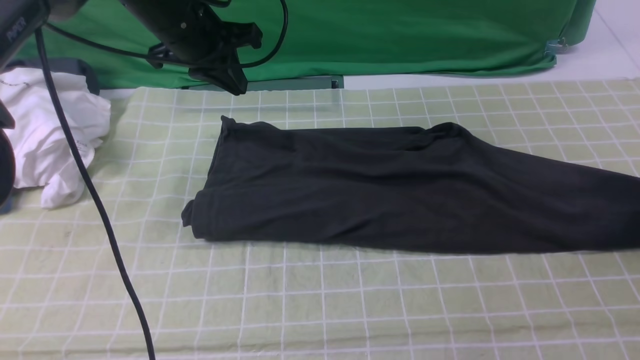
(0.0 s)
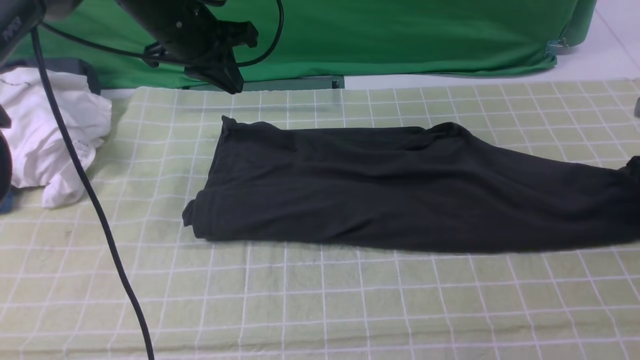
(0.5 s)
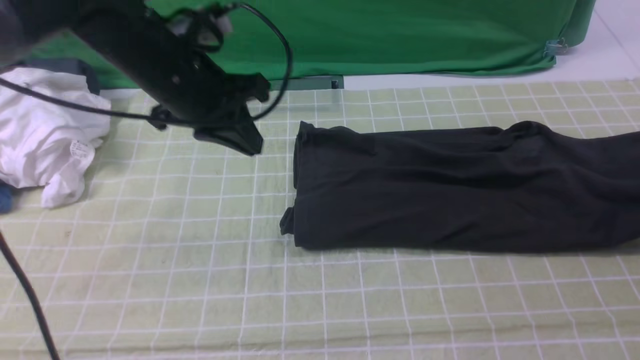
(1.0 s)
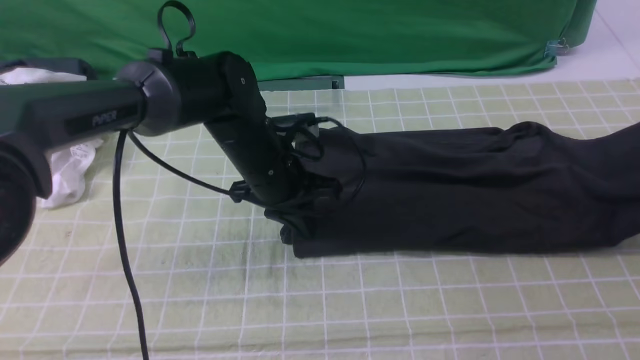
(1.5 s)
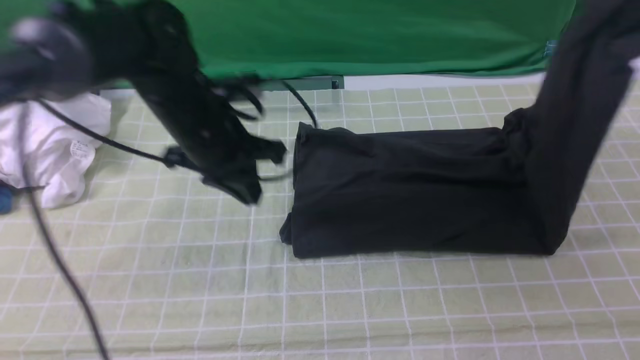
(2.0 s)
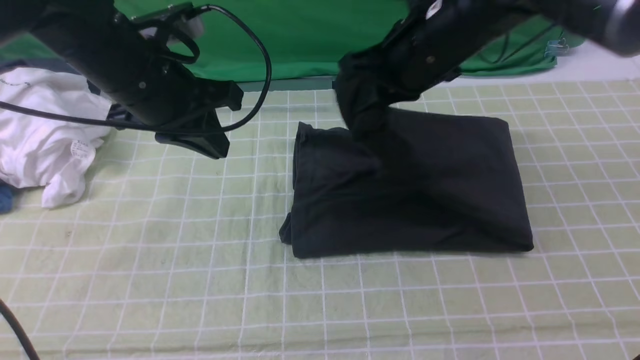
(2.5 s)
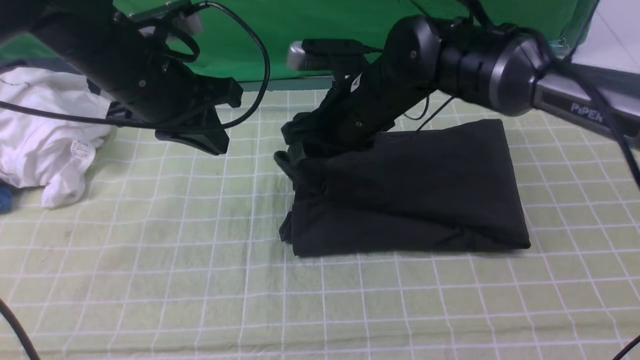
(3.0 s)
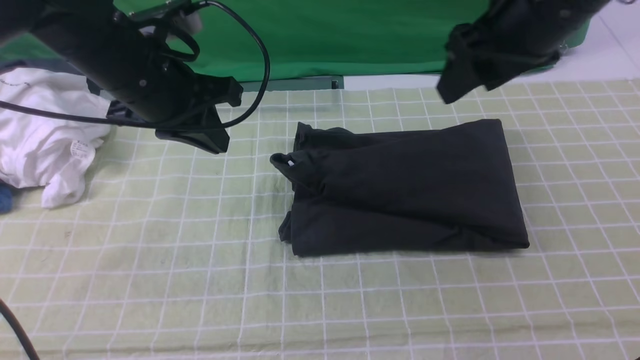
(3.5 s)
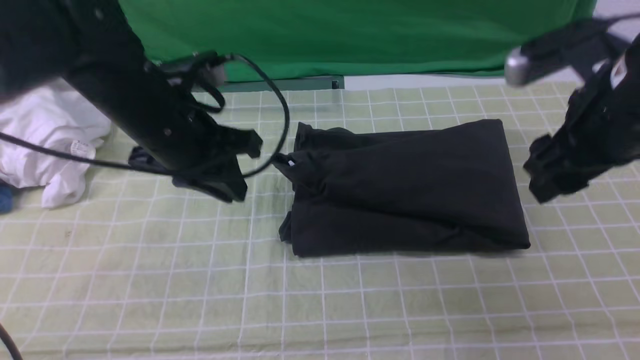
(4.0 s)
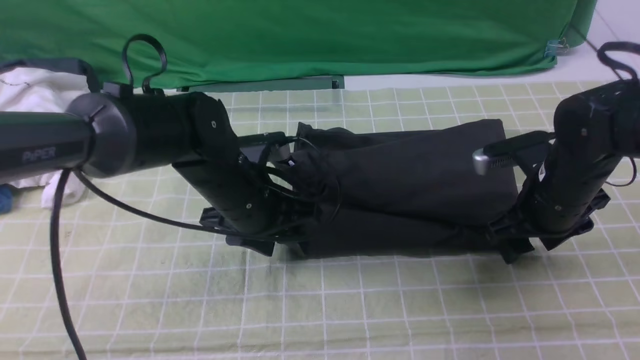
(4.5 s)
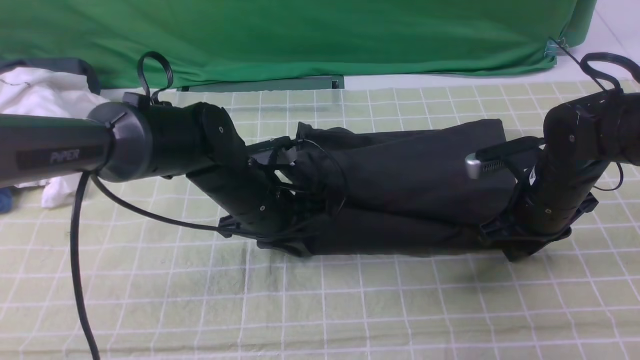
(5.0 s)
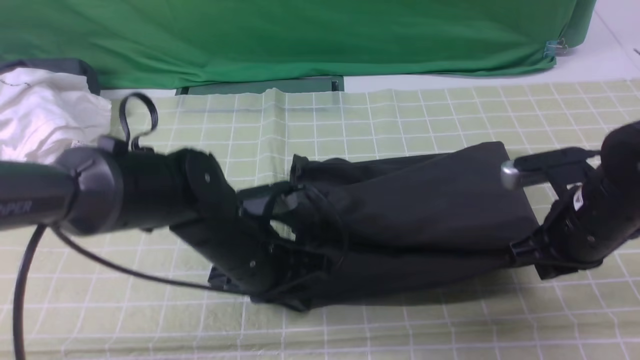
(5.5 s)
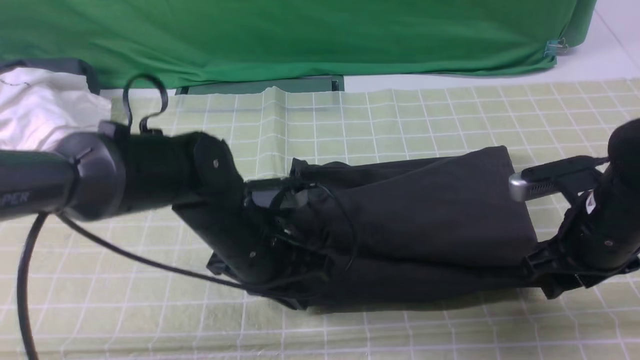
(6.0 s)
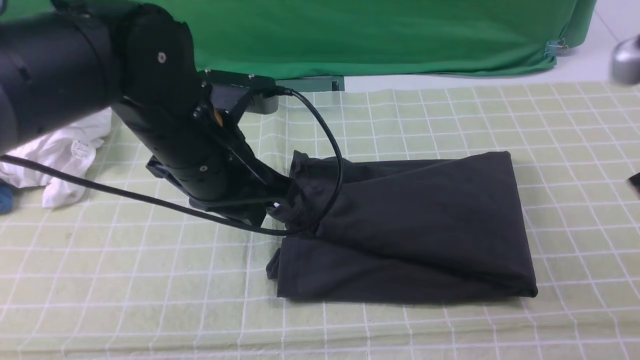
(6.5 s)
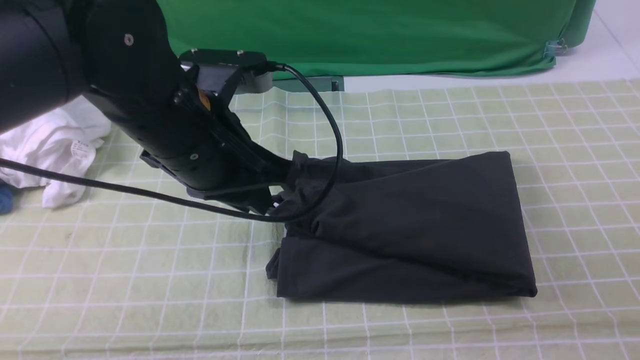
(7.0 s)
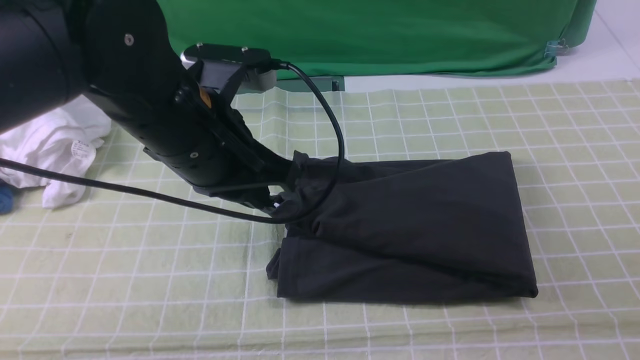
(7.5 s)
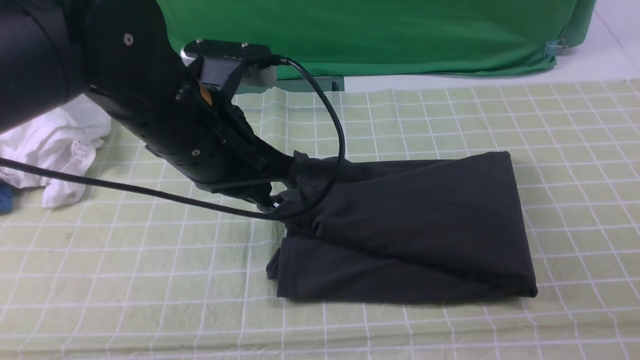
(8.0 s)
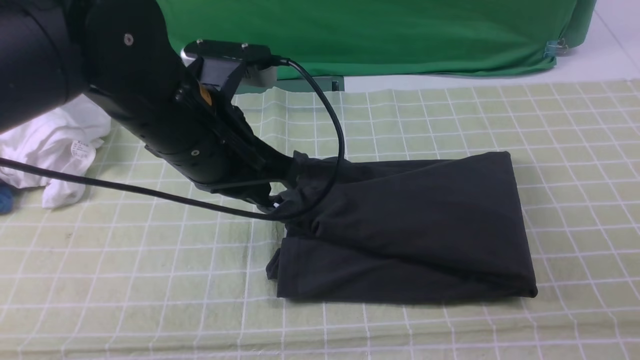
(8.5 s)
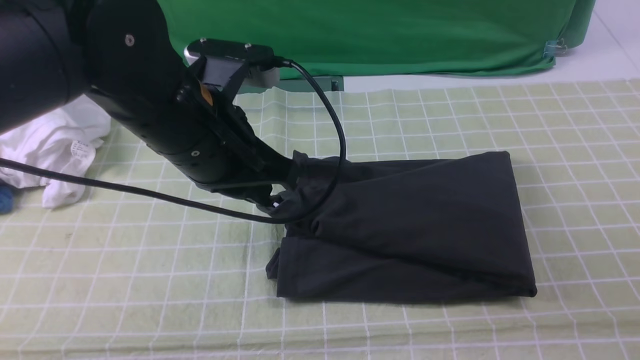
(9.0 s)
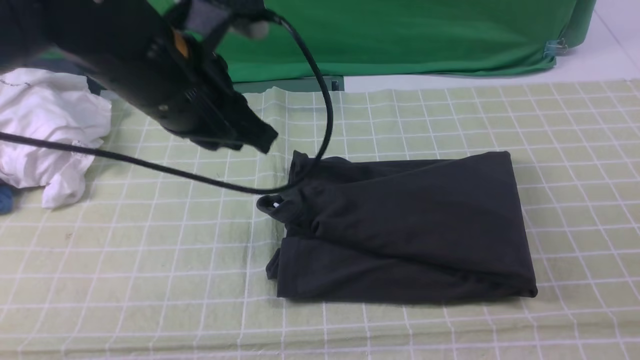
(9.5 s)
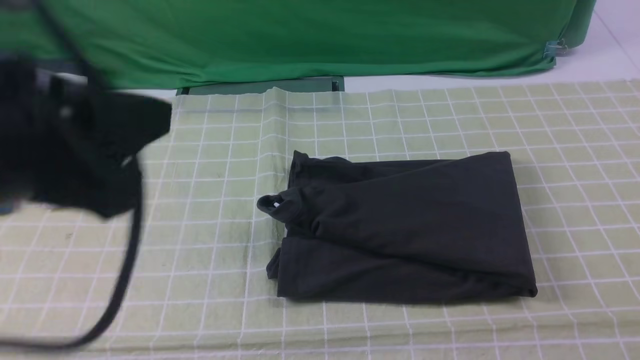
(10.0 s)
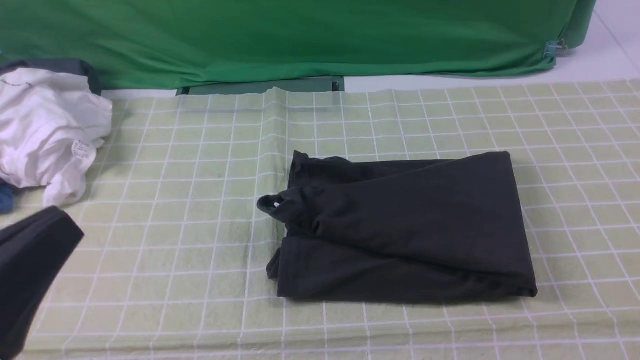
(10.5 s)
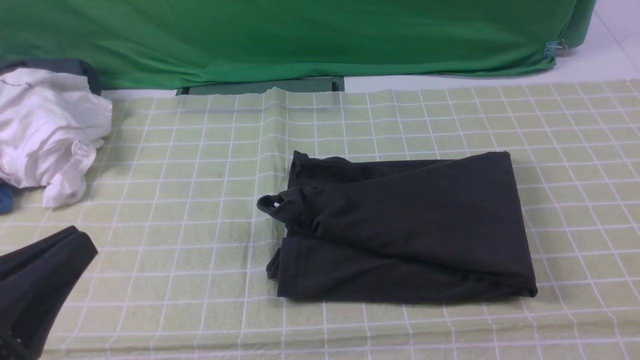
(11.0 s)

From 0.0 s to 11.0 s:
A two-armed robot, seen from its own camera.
Step, from 0.5 s to 3.0 s: use the right arm to drag the right edge of the fabric to the left and folds it over the left edge.
From 0.0 s to 2.0 s: The left gripper goes about 10 cm backward; the right gripper goes some 25 cm upward and to the left, and closes up.
From 2.0 s to 3.5 s: The right gripper shifts roughly 10 cm to the left, and opens, while the left gripper heads upward, covering some 5 cm.
From 3.5 s to 5.5 s: The right gripper moves downward, approximately 20 cm, and closes its fingers. Meanwhile the left gripper shifts roughly 20 cm downward, to the right and backward, and opens, then closes once more.
From 5.5 s to 7.5 s: The left gripper heads upward, covering approximately 15 cm, while the right gripper moves backward and upward, approximately 25 cm, and opens, then closes again.
From 7.5 s to 9.0 s: The right gripper heads downward, covering about 10 cm.
From 9.0 s to 11.0 s: The left gripper is displaced backward and to the left by some 25 cm.

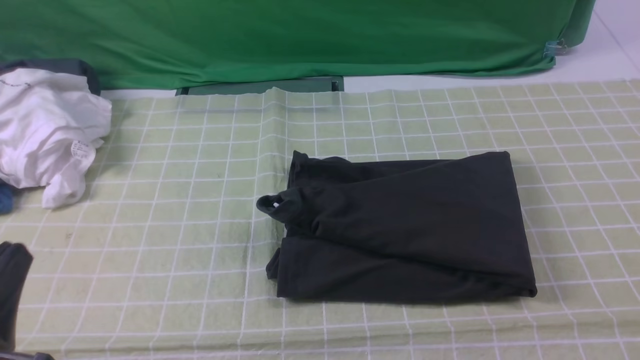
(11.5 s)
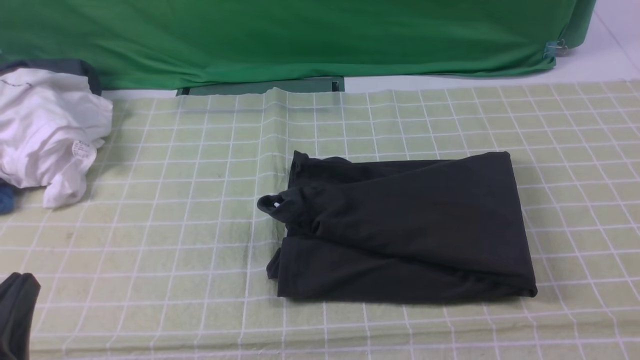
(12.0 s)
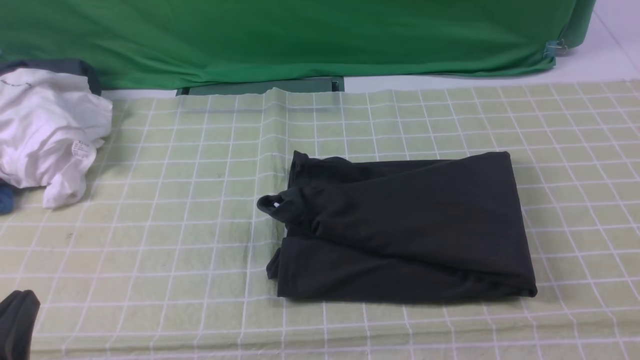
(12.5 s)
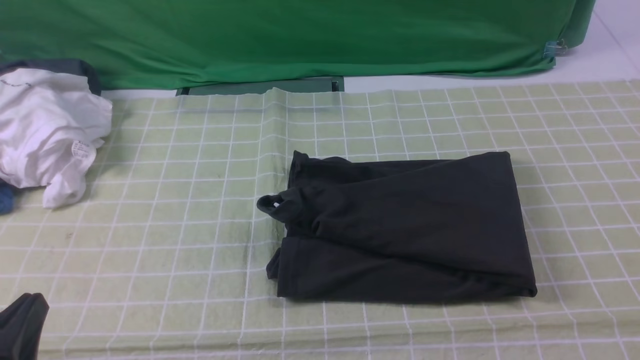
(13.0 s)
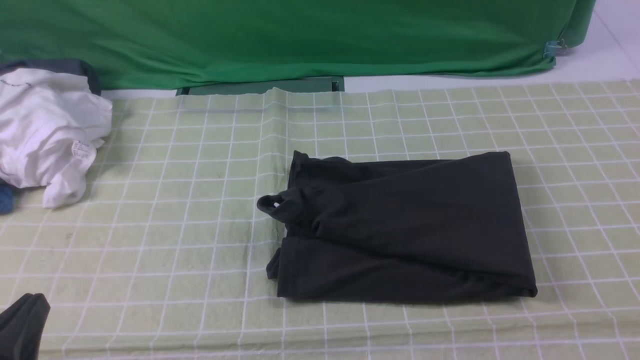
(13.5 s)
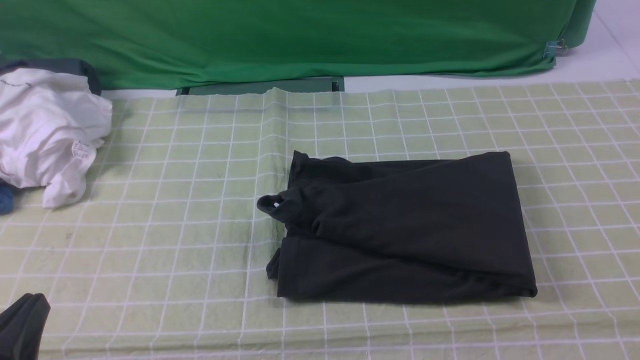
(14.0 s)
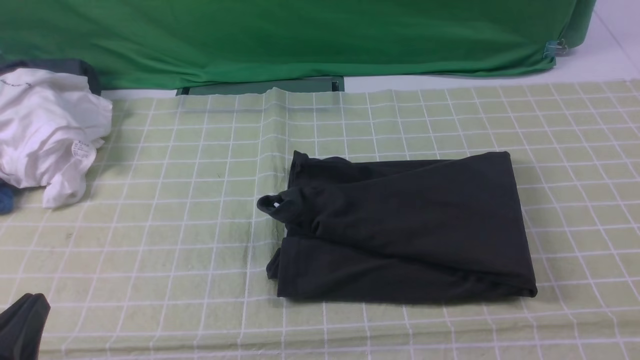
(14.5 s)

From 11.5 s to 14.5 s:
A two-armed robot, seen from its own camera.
From 11.5 s to 13.0 s: The grippers make only small movements.
From 13.0 s to 14.5 s: The two grippers keep their place.

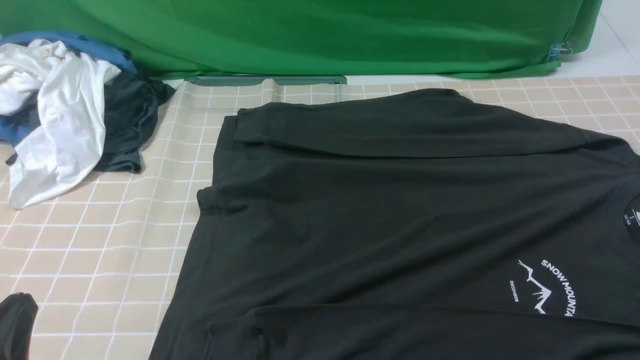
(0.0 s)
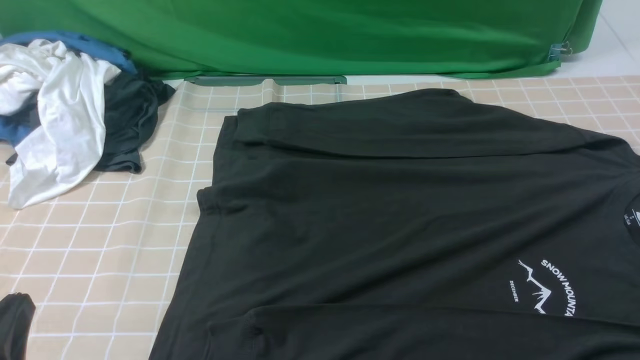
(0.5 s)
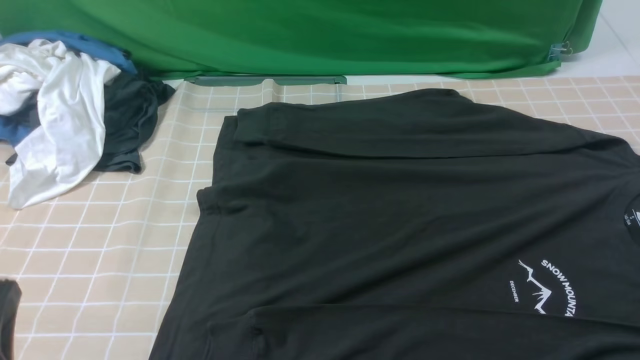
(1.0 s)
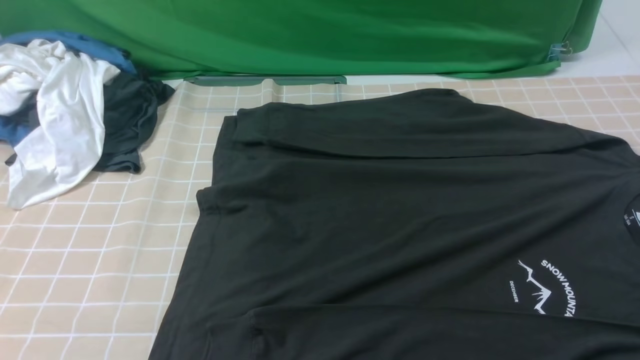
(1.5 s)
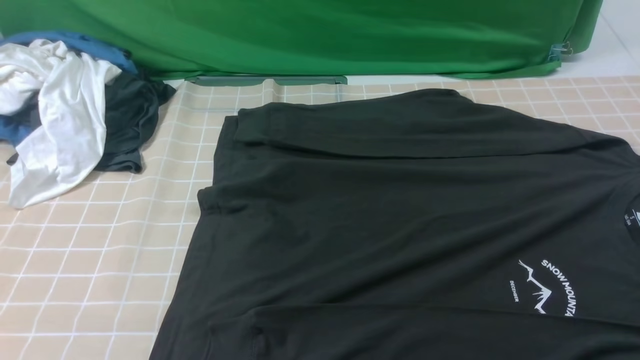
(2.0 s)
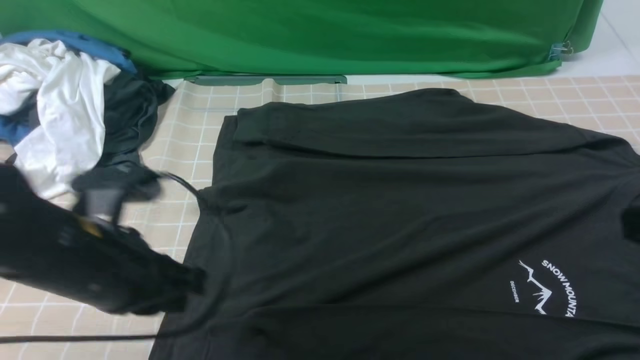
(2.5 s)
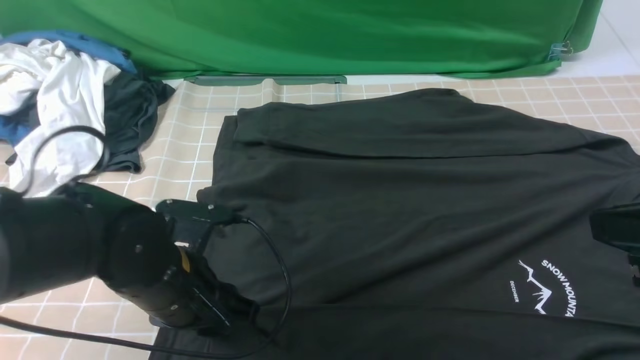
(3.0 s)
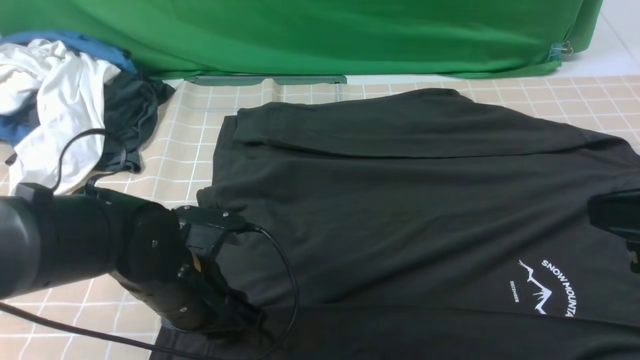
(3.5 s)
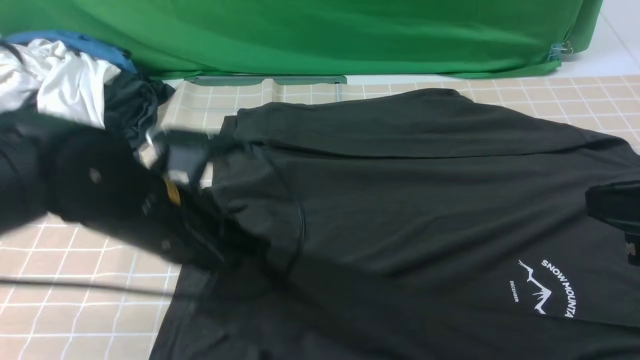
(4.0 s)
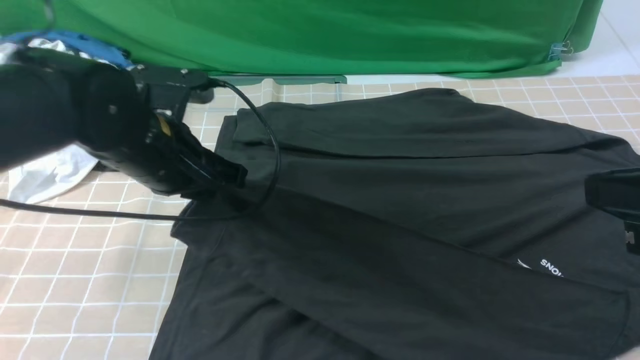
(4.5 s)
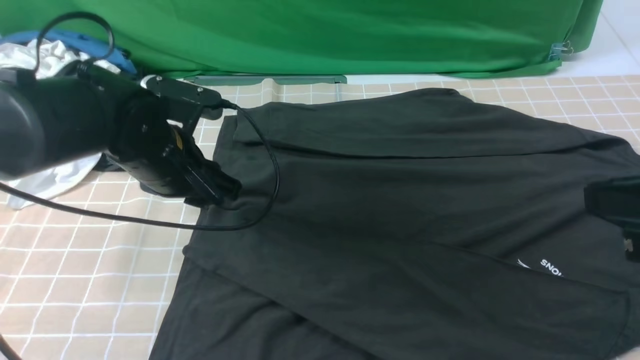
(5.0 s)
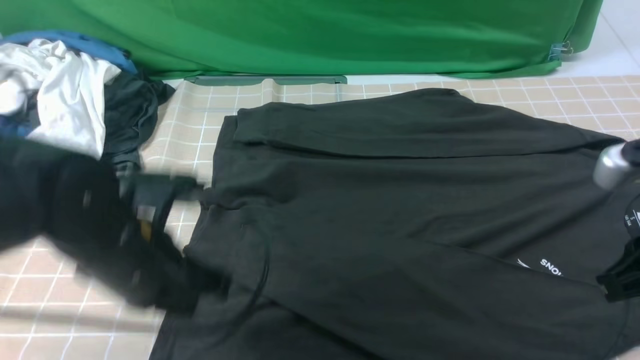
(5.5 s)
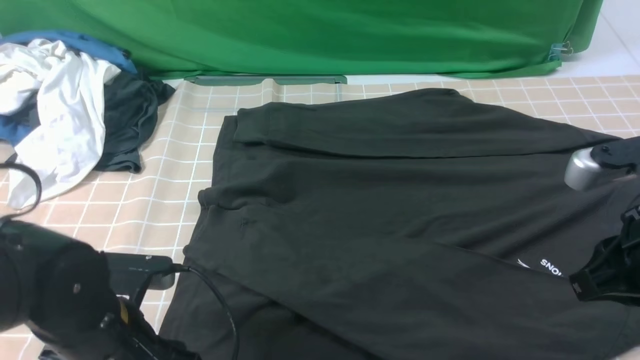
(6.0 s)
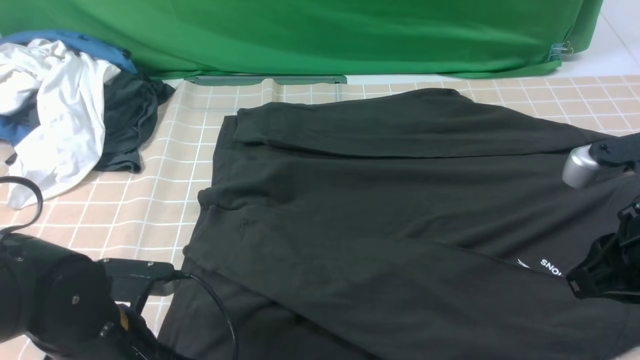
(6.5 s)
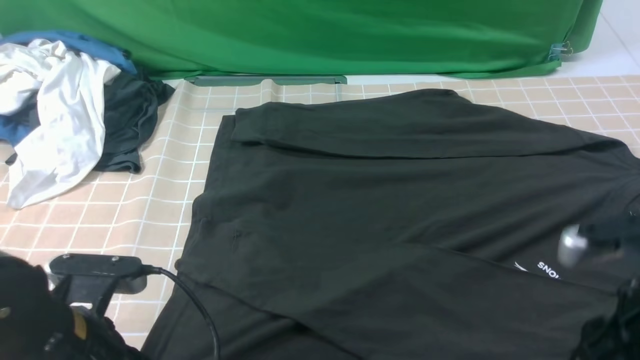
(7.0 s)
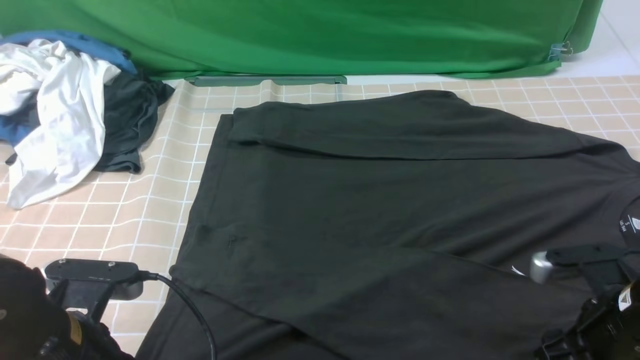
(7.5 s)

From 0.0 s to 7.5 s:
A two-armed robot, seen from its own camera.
Step, from 0.0 s to 3.5 s: use the left arm to clamp the cuff closest to it.
Step, from 4.0 s to 5.0 s: use the left arm to drag and place the cuff at the centered position on the left edge of the fabric.
From 0.0 s to 2.0 s: The left gripper moves upward, some 15 cm.
From 2.0 s to 4.0 s: The left gripper moves forward, to the right and downward, roughly 20 cm, and opens, then closes again, while the right gripper is displaced forward and to the left by roughly 10 cm.
From 4.0 s to 5.5 s: The left gripper moves some 10 cm forward and comes back, and opens, then closes once more. Meanwhile the right gripper shifts about 5 cm downward.
From 5.5 s to 7.5 s: The right gripper goes about 15 cm downward, and opens its fingers. The left gripper heads backward, covering roughly 10 cm, and opens, then closes once more.
